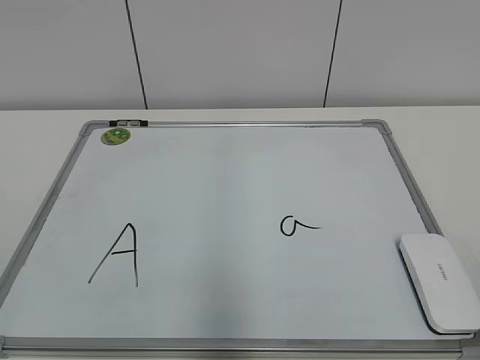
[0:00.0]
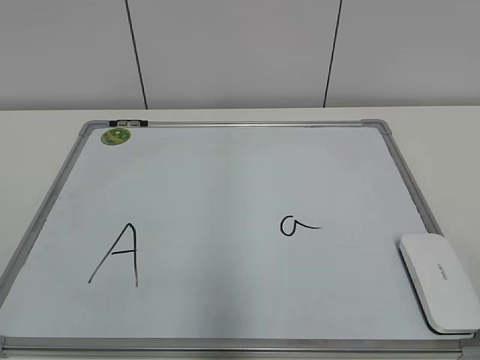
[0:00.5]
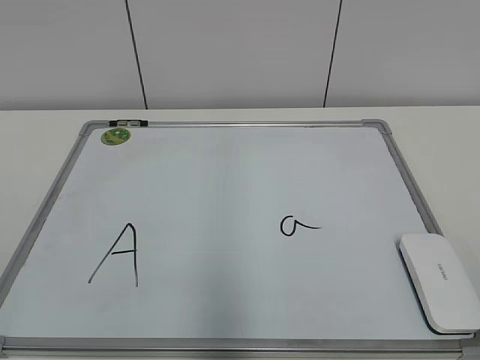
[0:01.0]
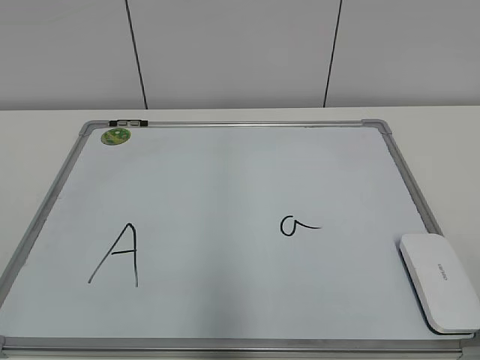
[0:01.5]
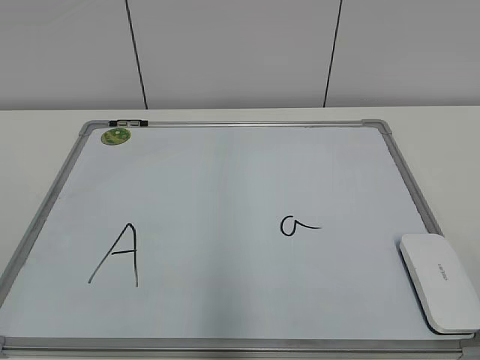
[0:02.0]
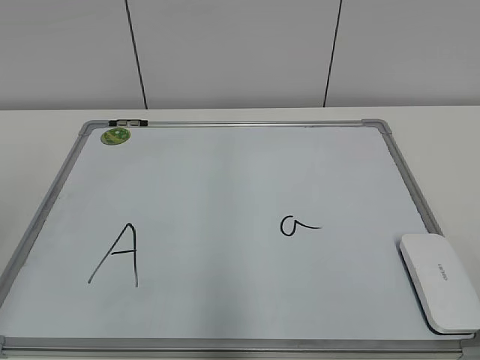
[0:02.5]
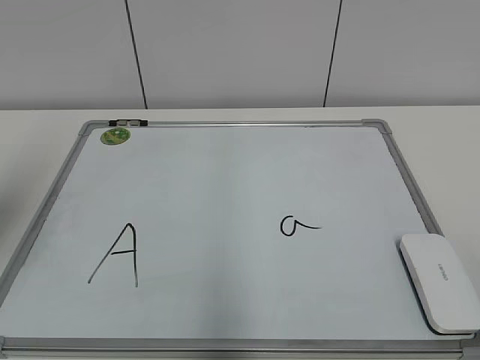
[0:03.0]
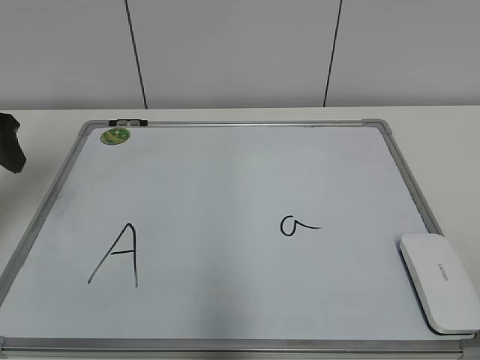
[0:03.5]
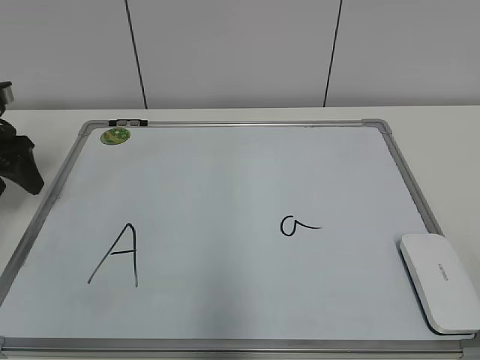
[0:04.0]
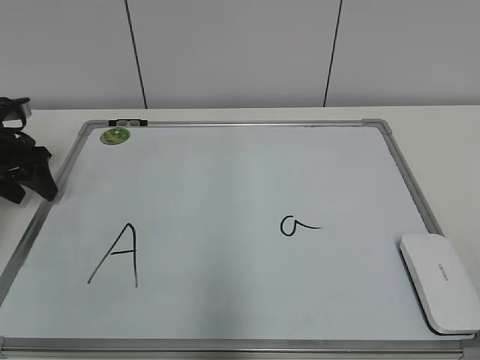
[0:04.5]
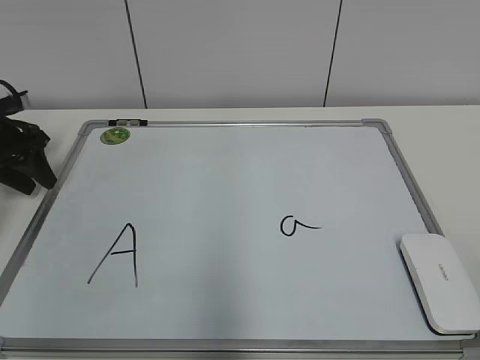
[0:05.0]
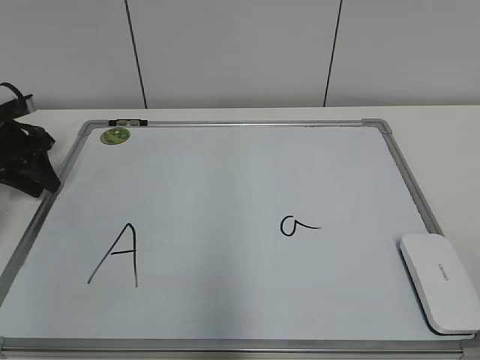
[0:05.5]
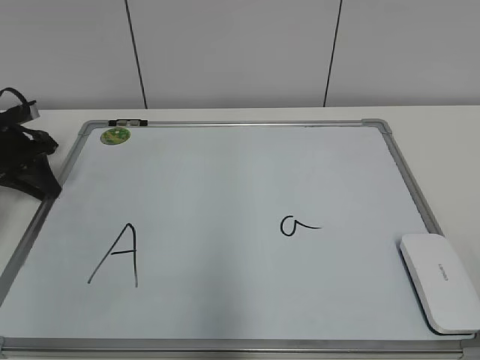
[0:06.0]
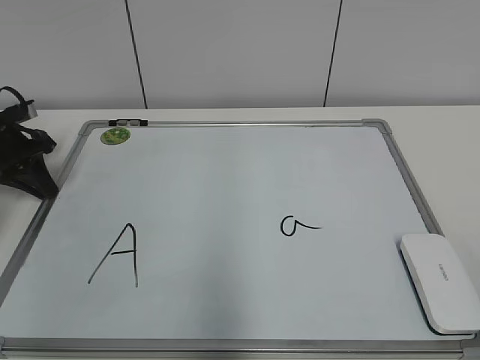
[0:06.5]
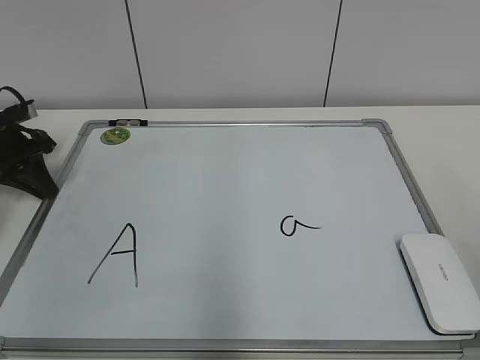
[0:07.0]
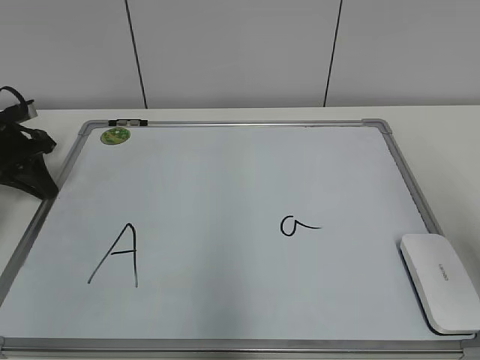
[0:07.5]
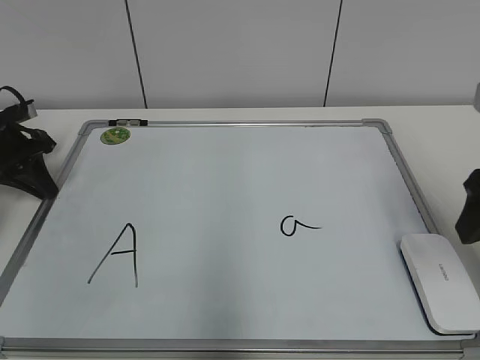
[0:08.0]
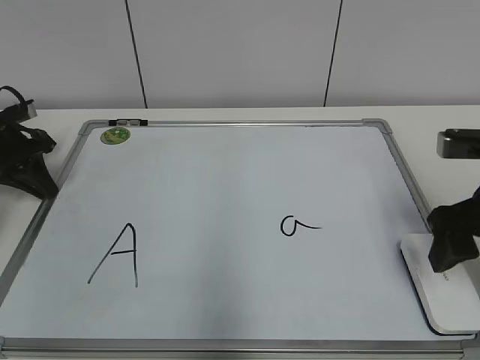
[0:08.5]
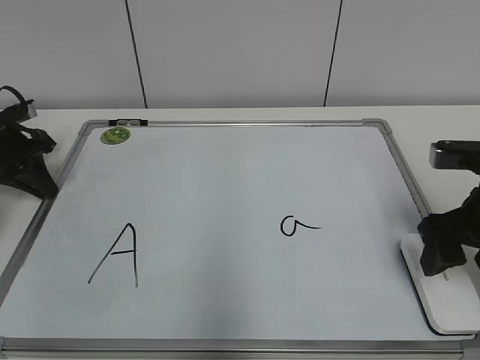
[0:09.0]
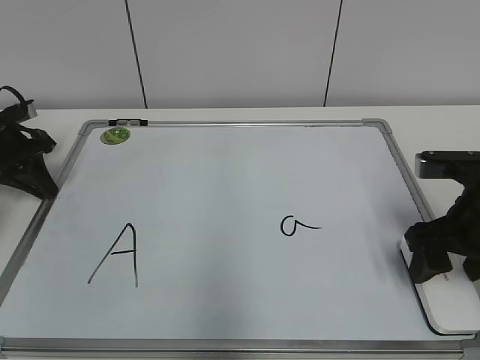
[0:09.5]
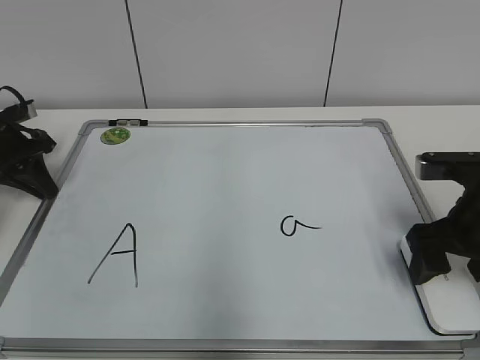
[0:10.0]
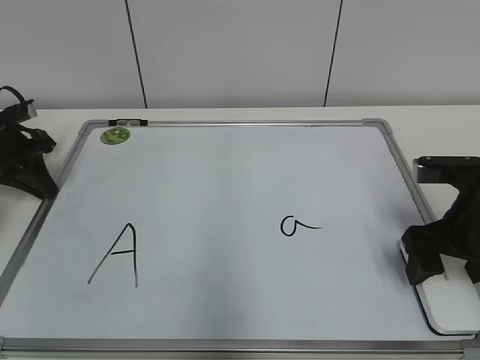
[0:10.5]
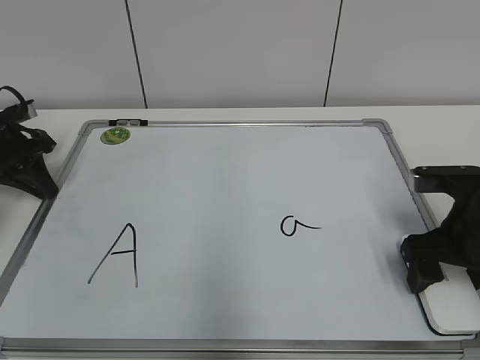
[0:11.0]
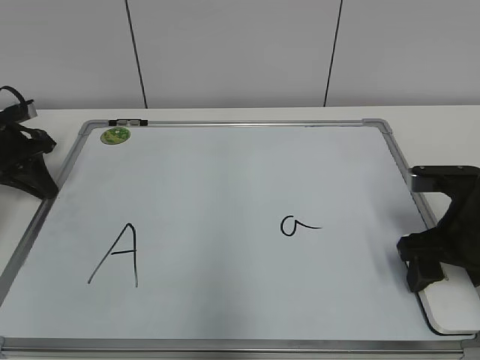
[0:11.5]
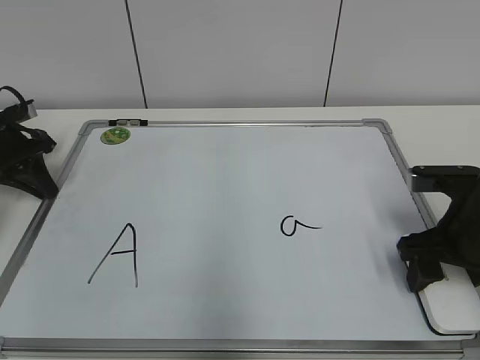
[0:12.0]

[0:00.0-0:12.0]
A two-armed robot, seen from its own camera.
Task of the whole recording: pick up the eraser on the blackboard and erase the letter "a".
Step, 0:00.0 to 0:06.0: Hold the drawing board steady with your left hand.
0:02.0 to 0:04.0: The left gripper is displaced forward by approximately 40 cm.
0:04.0 to 0:06.0: The left gripper goes approximately 10 cm downward and forward, and closes.
0:06.0 to 0:08.0: The right gripper is displaced forward by some 25 cm.
0:08.0 to 0:10.0: The right gripper travels downward by about 10 cm, and opens its fingers.
0:10.0 to 0:12.0: The right gripper closes.

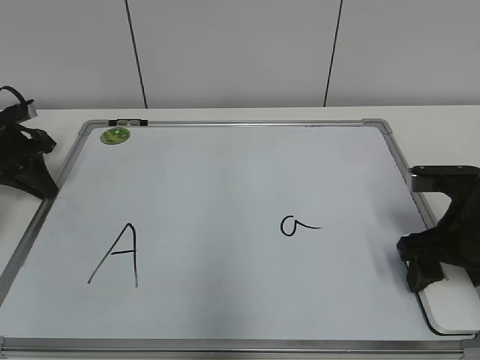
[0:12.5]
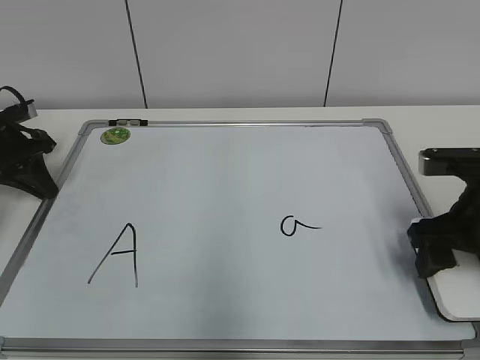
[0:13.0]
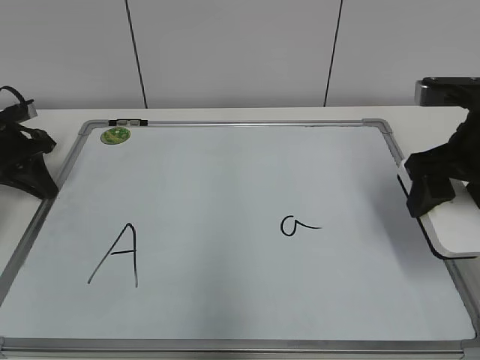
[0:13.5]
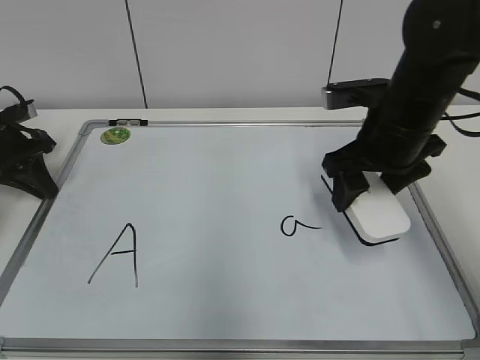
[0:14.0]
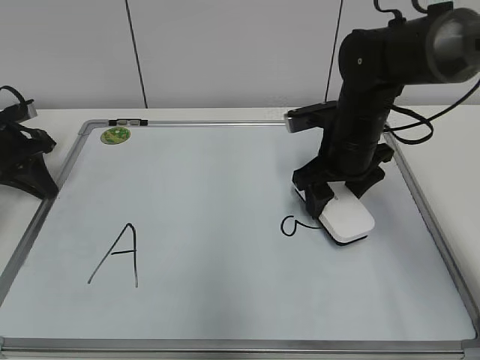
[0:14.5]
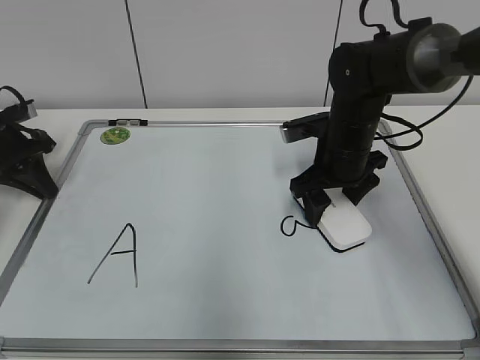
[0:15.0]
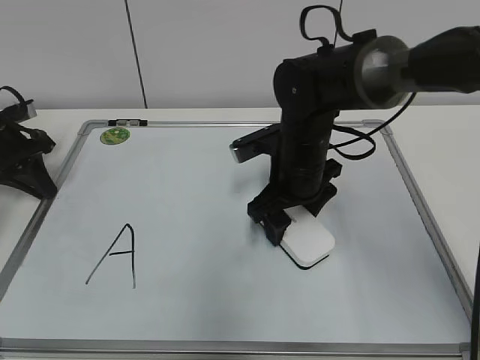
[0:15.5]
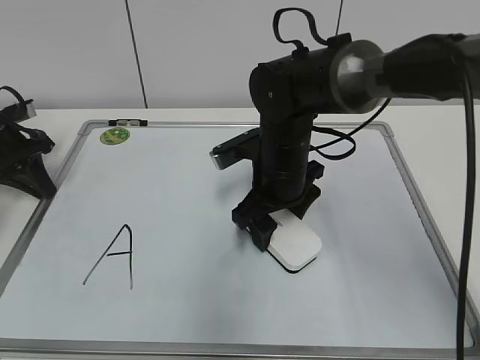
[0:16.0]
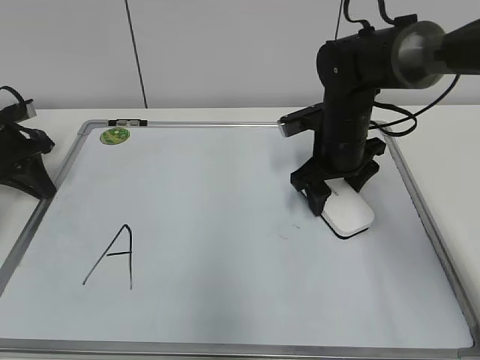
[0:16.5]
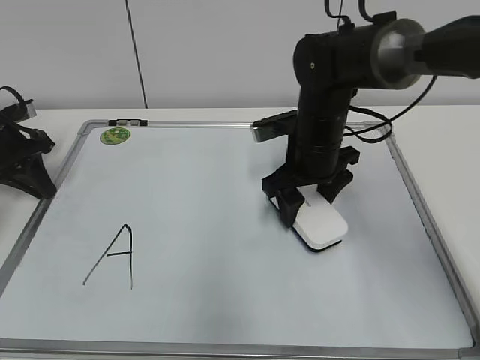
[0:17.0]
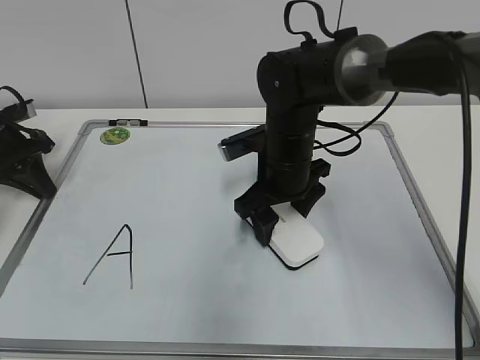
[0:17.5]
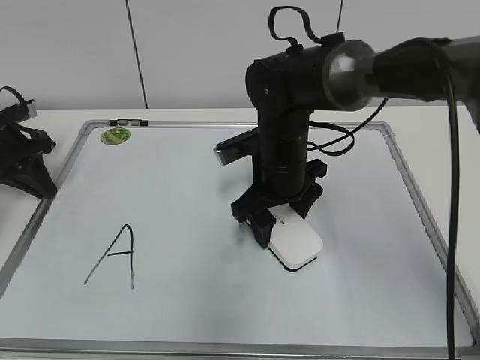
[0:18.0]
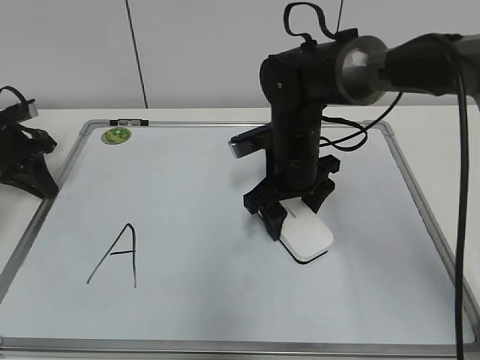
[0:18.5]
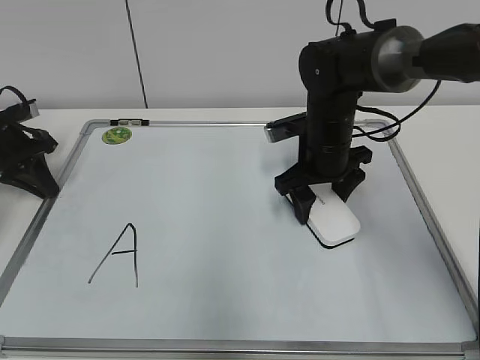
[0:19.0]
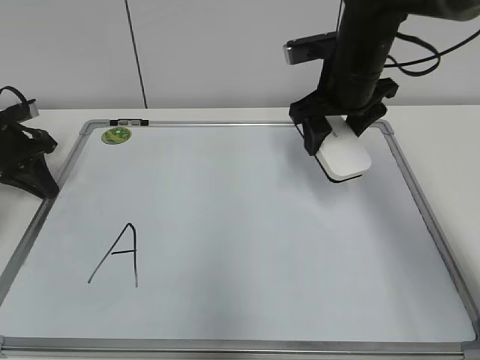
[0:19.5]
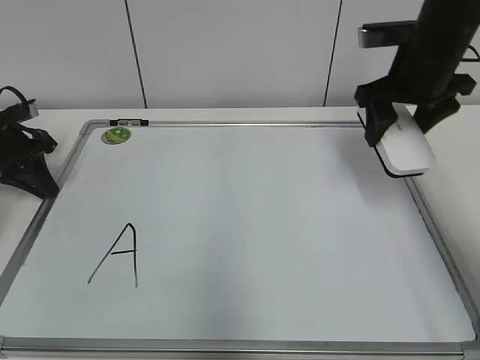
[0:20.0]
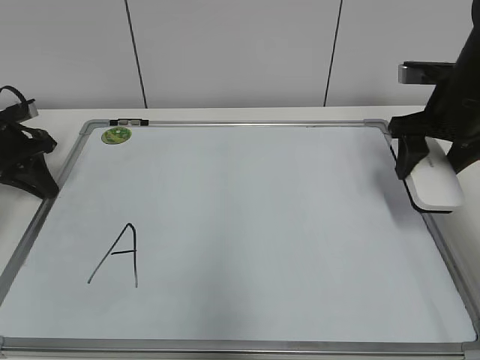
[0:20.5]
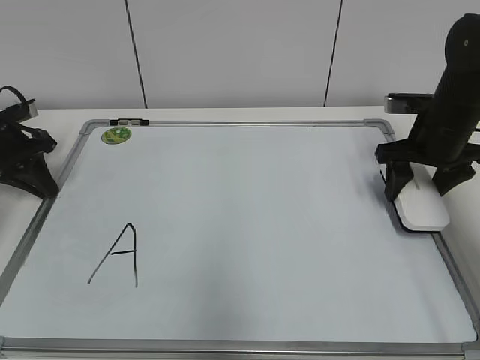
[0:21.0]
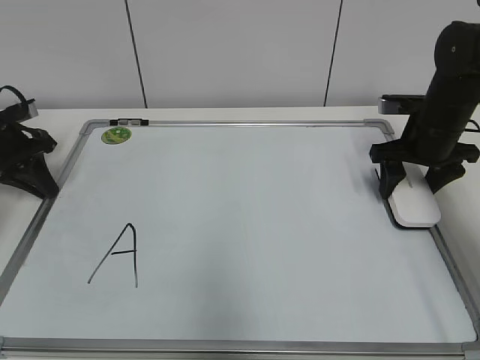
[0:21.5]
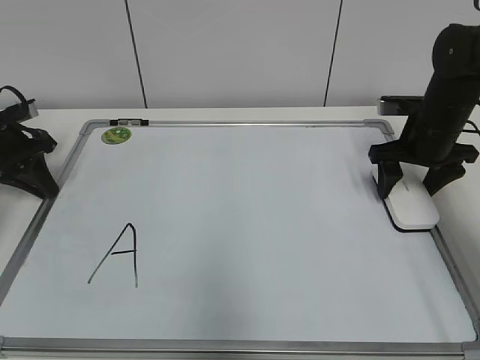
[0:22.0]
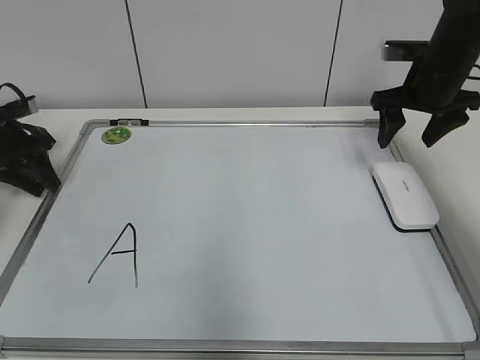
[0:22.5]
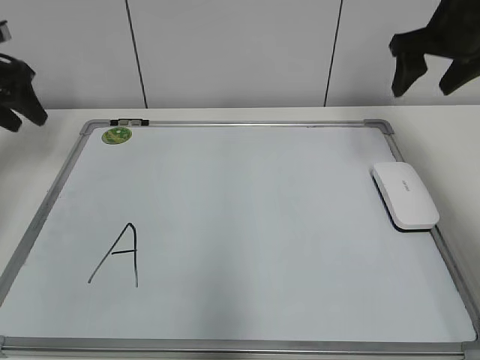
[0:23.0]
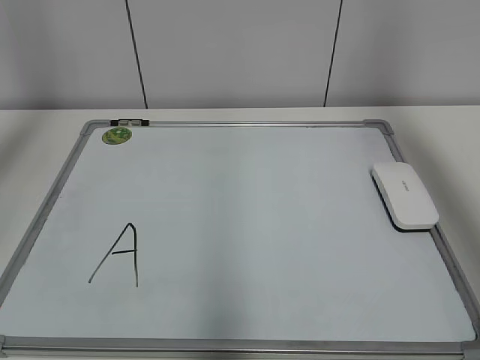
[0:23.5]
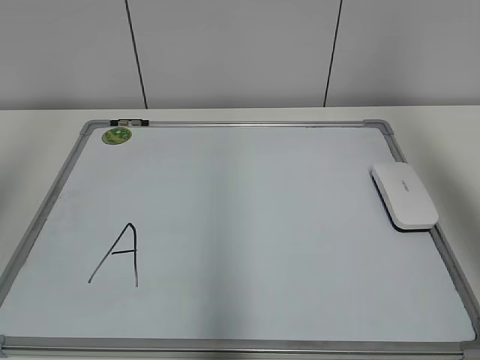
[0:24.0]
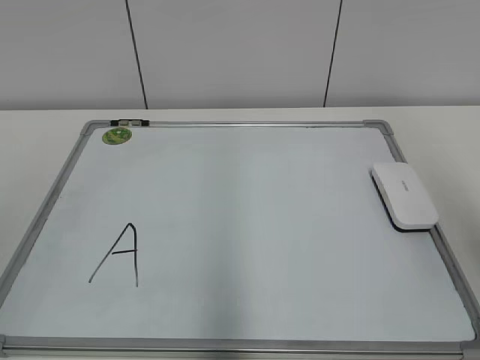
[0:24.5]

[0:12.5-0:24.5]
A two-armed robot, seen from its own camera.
Task of the whole recording: pick up the eraser on the blackboard and erase the letter "a".
Step, 0:12.5 to 0:19.0: Erase the letter a with your right hand.
Step, 0:19.5 to 0:21.5: Put down the eraser with your right hand.
0:12.5 to 0:14.5: The right gripper is displaced forward and to the left by roughly 15 cm.
0:14.5 to 0:16.5: The right gripper reaches roughly 10 cm to the left, then returns.
0:16.5 to 0:18.5: The right gripper shifts some 5 cm to the left.
0:18.5 to 0:20.5: The right gripper heads to the right and upward, covering roughly 20 cm.
0:20.5 to 0:22.5: The right gripper heads forward, covering some 5 cm, and opens. The left gripper opens up.
0:22.5 to 0:24.5: The grippers both shift backward and upward by roughly 40 cm. The left gripper opens up.
